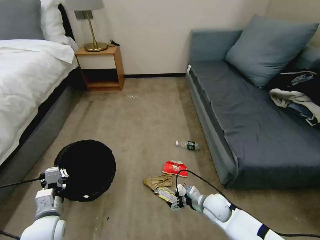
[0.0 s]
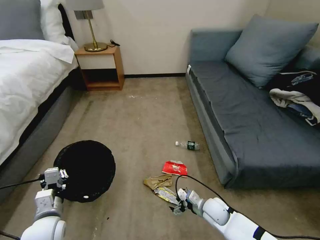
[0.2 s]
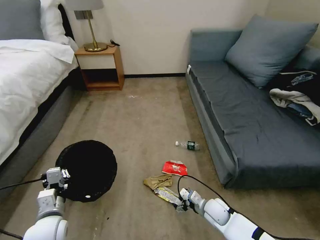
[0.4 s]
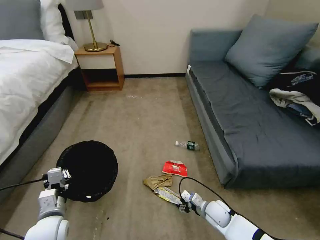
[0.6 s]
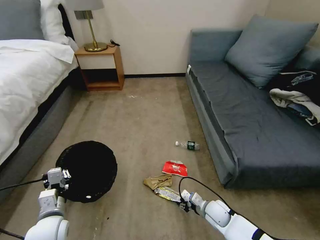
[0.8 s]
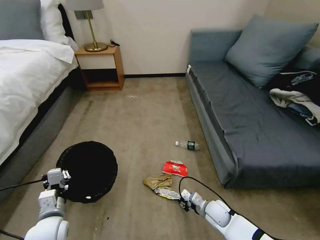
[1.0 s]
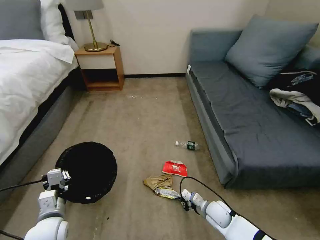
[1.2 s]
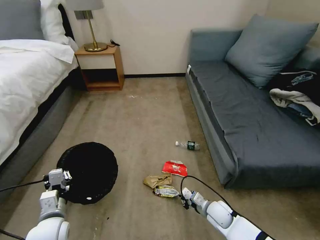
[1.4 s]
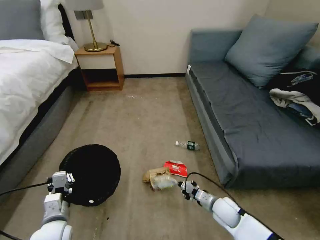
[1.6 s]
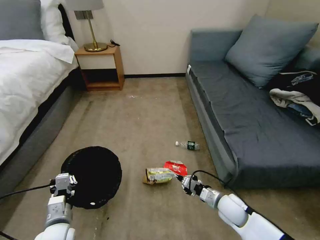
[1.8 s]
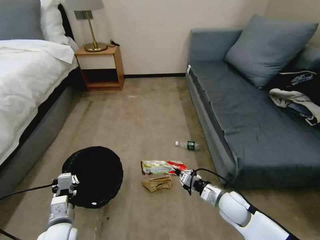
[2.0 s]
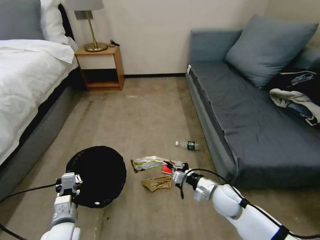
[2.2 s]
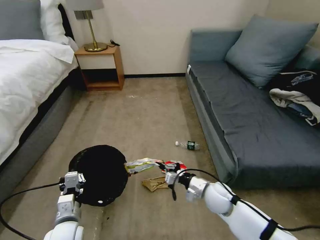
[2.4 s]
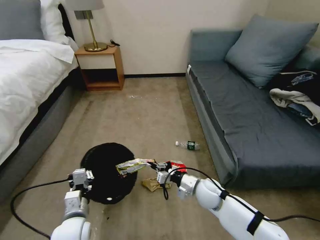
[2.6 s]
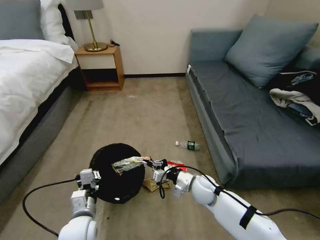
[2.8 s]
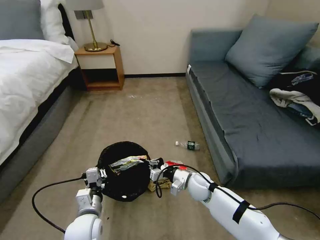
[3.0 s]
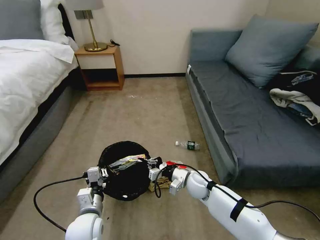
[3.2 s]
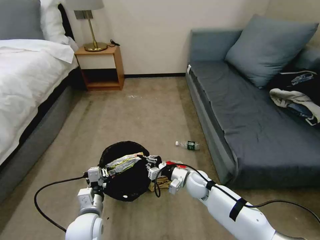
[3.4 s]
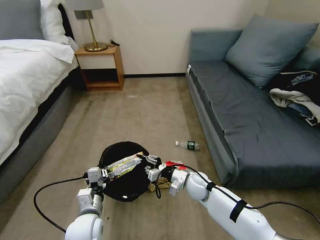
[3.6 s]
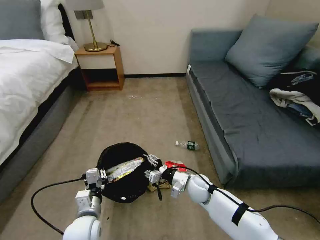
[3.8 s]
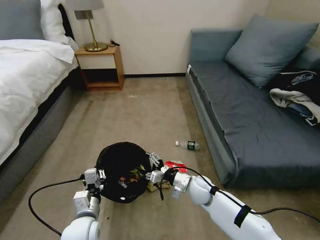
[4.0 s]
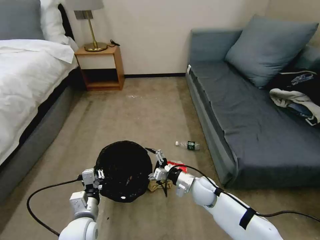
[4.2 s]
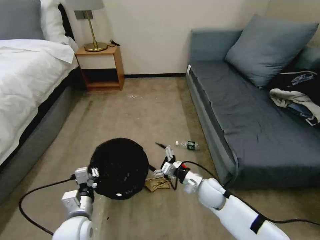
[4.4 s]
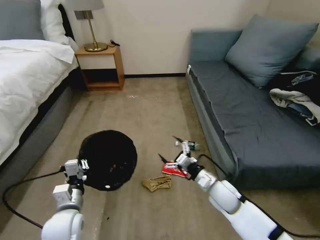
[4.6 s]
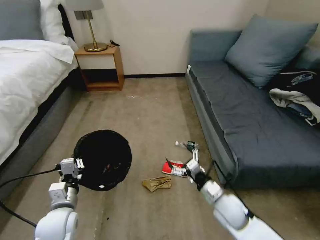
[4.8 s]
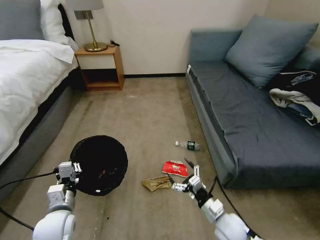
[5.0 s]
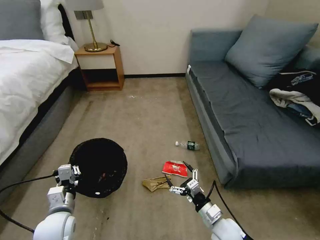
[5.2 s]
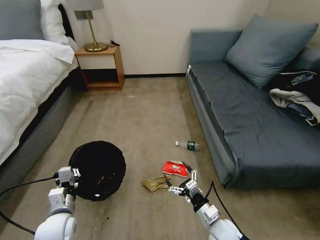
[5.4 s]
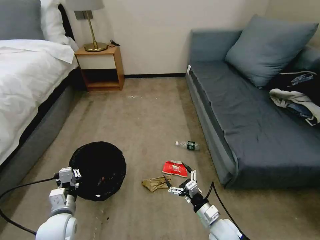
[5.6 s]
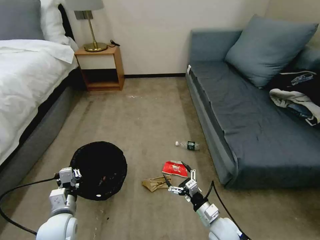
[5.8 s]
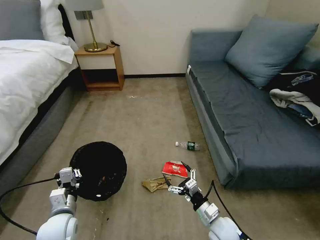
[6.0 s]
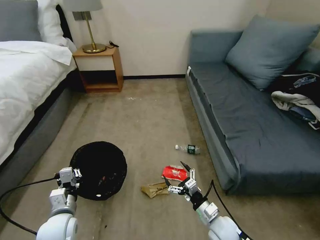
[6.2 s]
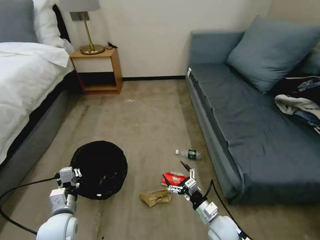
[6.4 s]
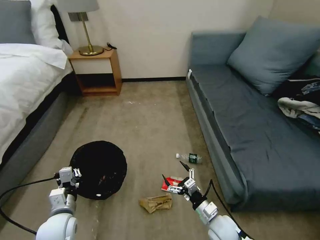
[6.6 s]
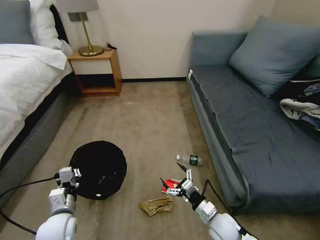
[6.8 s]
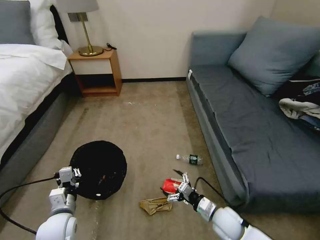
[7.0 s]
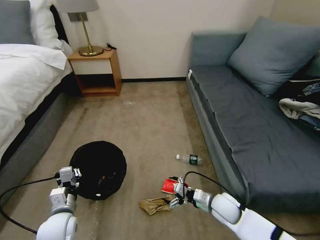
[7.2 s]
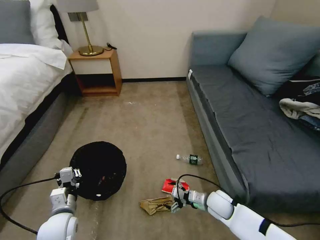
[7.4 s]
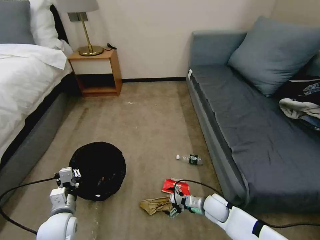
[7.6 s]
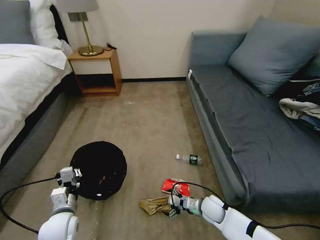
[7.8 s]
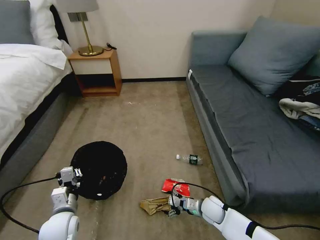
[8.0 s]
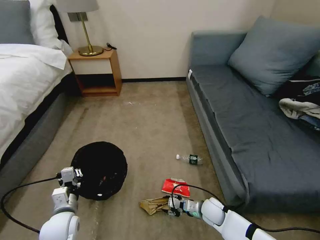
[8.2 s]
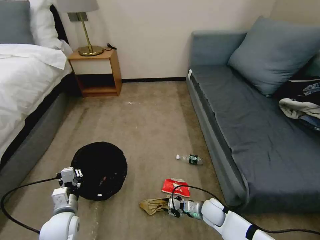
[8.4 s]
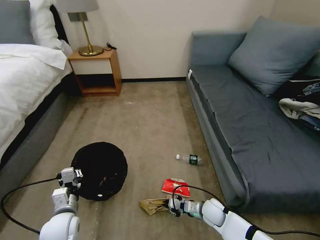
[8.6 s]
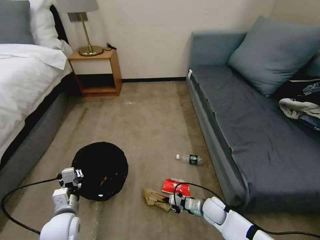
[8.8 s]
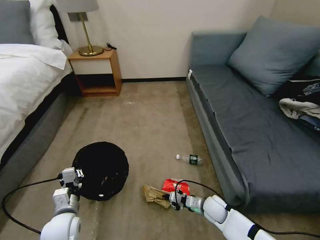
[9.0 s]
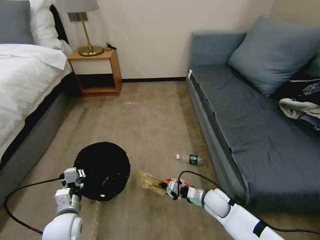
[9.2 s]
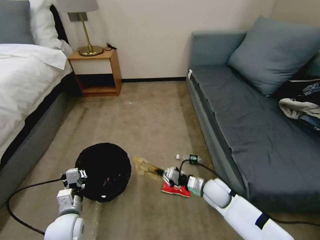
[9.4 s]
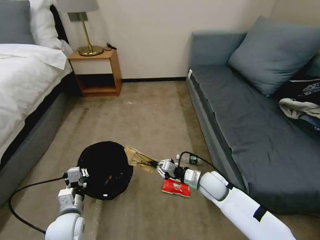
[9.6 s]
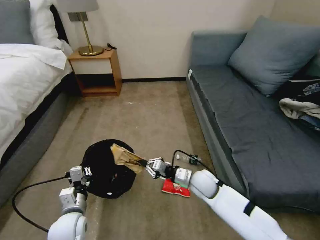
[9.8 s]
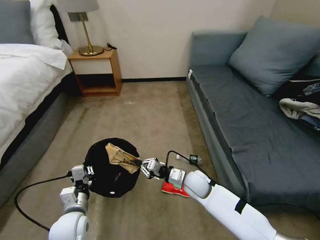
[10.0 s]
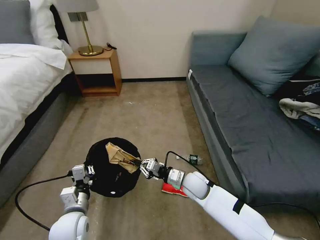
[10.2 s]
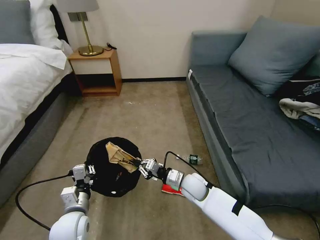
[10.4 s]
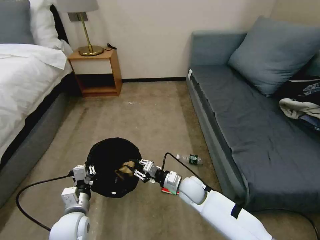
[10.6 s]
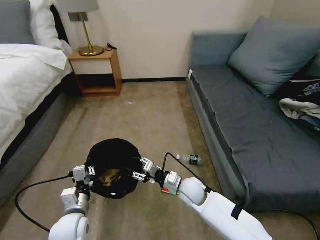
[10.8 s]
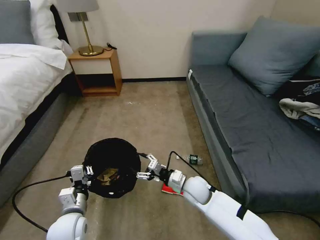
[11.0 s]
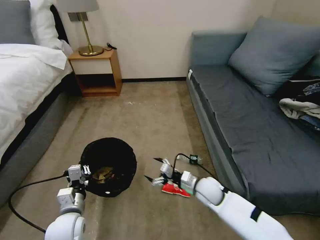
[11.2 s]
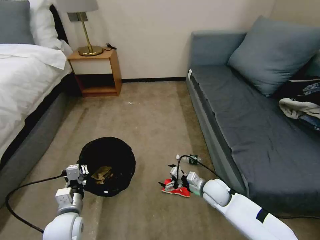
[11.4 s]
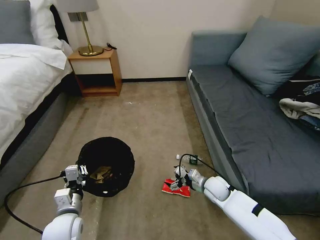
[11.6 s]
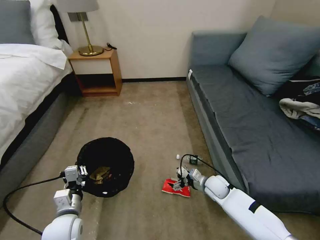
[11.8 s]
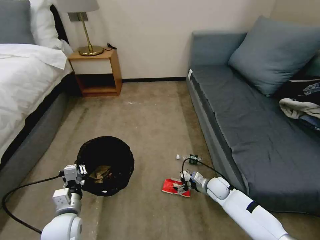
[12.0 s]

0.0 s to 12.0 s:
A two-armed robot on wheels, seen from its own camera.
Task of the whole recording: Pick up the trash bin, then pick up the garbage on the floor and place it into the trash bin.
0.0 to 1.6 s: The right gripper closes its fingers.
1.6 to 3.0 s: The left gripper heads to the right, covering about 10 cm, while the right gripper heads to the left, forward and upward, covering about 15 cm.
3.0 to 4.4 s: The right gripper opens up.
4.4 to 6.0 s: The left gripper shifts about 5 cm to the left. Meanwhile the right gripper moves backward and downward, approximately 15 cm.
6.0 to 7.6 s: The right gripper is displaced forward by some 10 cm.
7.6 to 9.0 s: The right gripper closes up.
9.0 to 10.4 s: The right gripper moves to the left and upward, roughly 15 cm.
10.4 to 12.0 s: The right gripper is displaced to the right and downward by roughly 15 cm, and opens up.

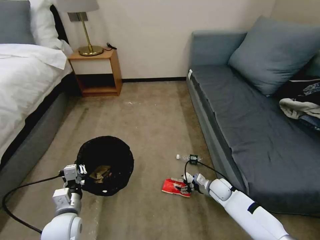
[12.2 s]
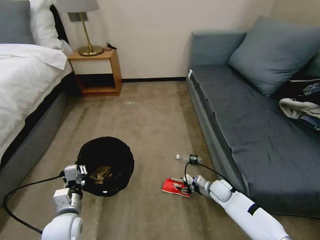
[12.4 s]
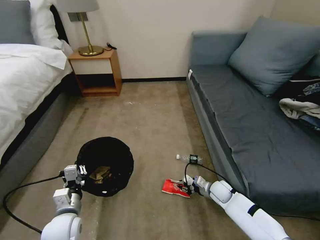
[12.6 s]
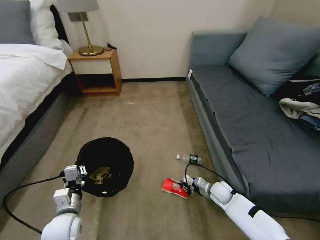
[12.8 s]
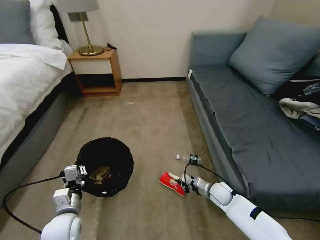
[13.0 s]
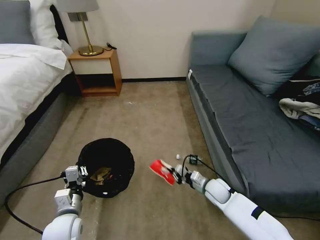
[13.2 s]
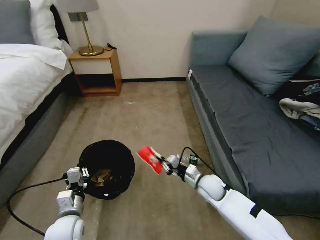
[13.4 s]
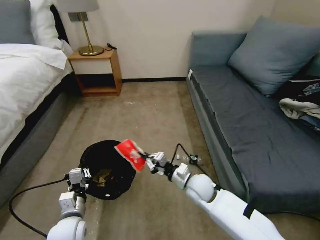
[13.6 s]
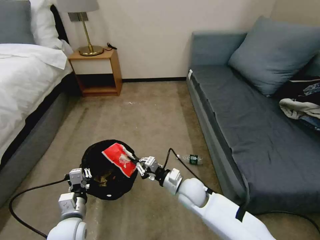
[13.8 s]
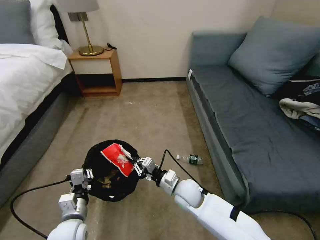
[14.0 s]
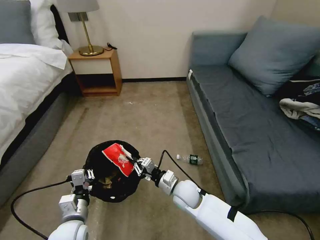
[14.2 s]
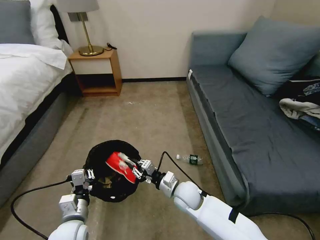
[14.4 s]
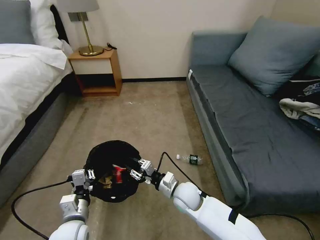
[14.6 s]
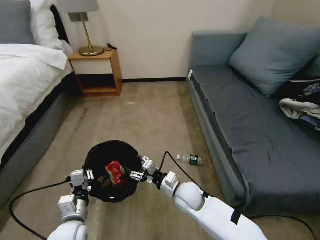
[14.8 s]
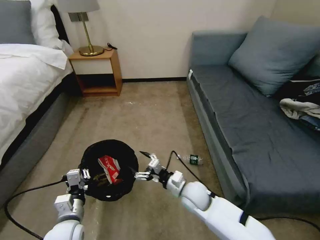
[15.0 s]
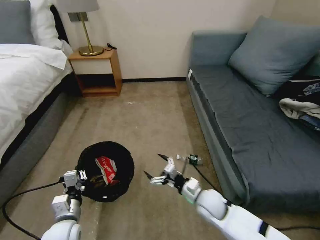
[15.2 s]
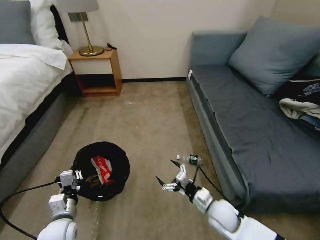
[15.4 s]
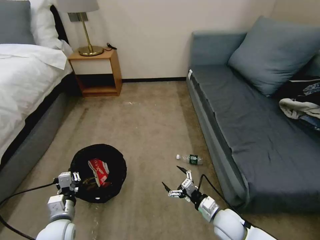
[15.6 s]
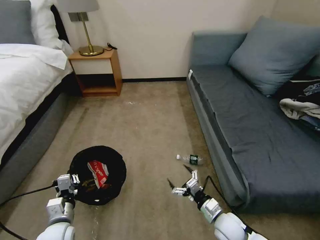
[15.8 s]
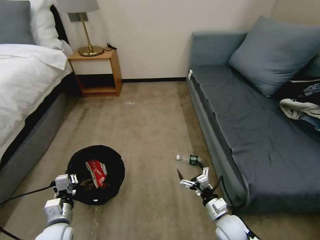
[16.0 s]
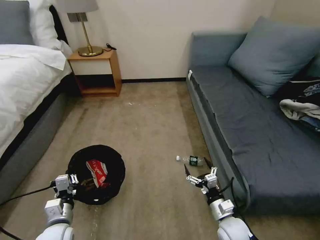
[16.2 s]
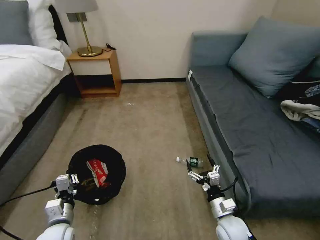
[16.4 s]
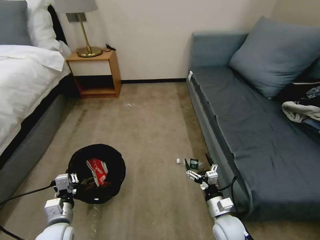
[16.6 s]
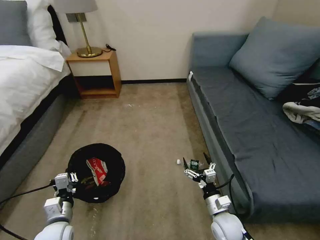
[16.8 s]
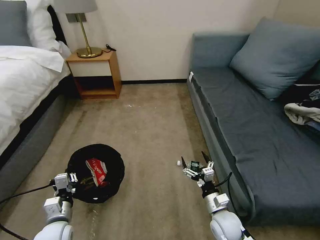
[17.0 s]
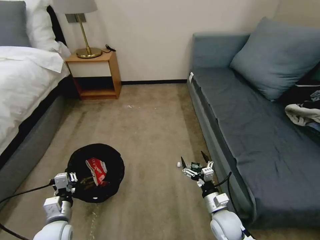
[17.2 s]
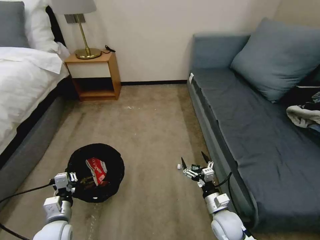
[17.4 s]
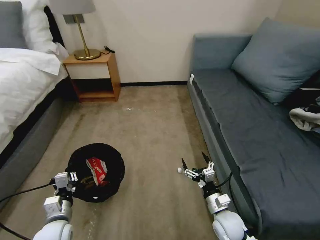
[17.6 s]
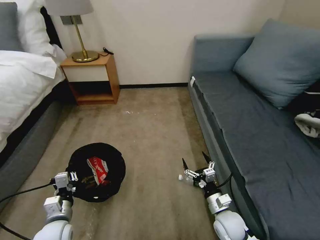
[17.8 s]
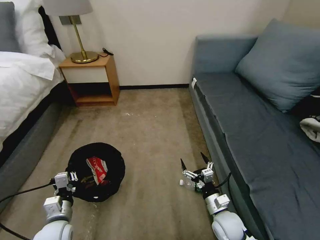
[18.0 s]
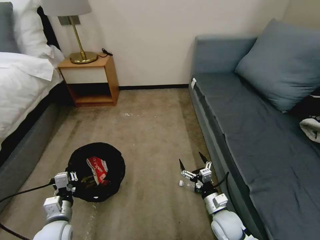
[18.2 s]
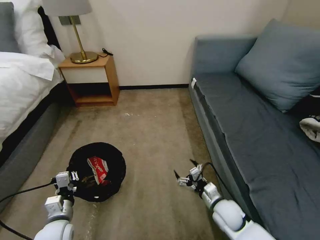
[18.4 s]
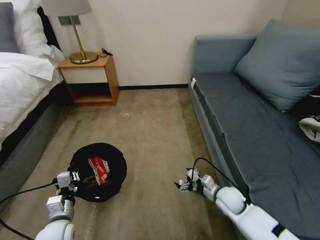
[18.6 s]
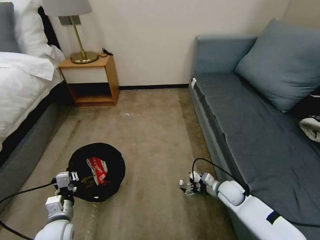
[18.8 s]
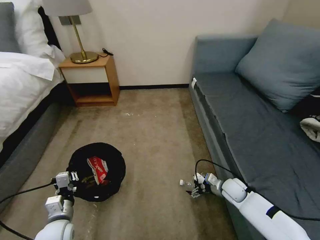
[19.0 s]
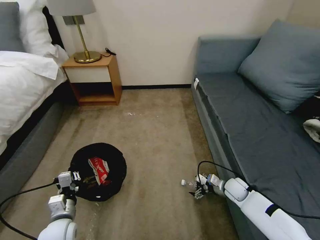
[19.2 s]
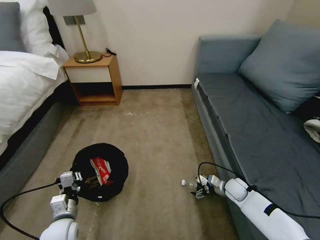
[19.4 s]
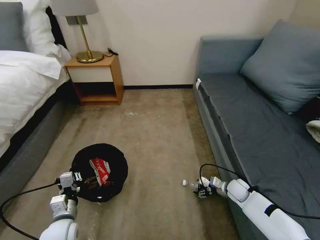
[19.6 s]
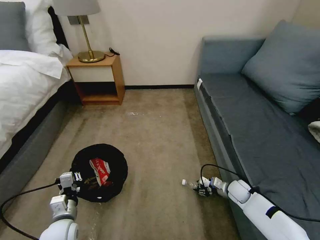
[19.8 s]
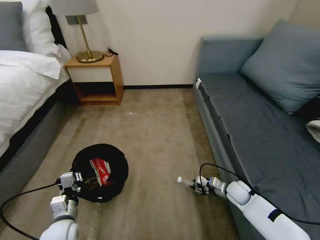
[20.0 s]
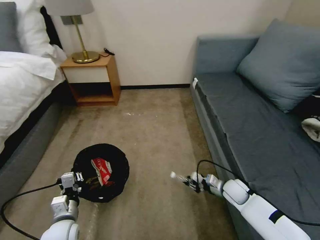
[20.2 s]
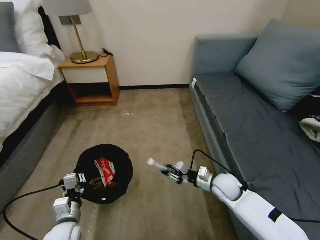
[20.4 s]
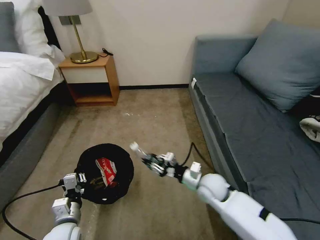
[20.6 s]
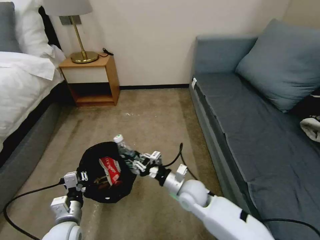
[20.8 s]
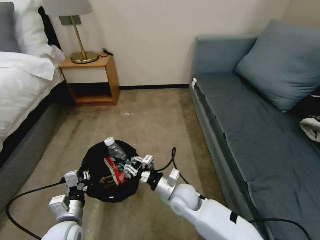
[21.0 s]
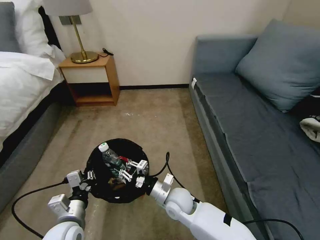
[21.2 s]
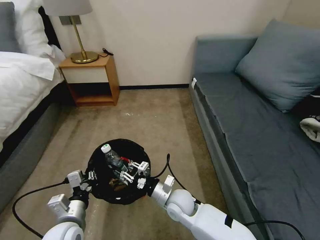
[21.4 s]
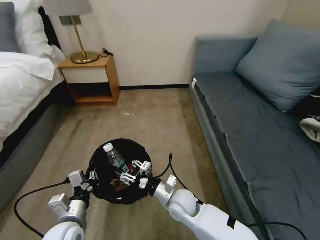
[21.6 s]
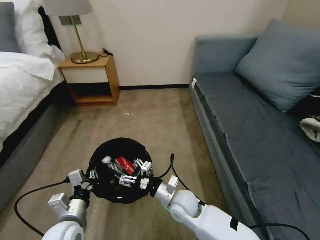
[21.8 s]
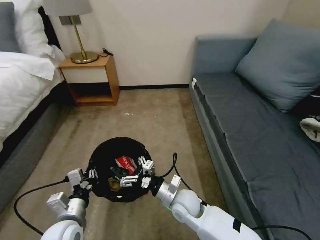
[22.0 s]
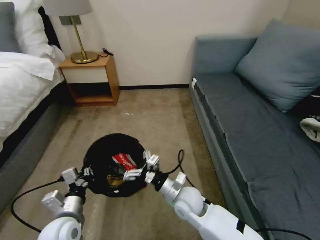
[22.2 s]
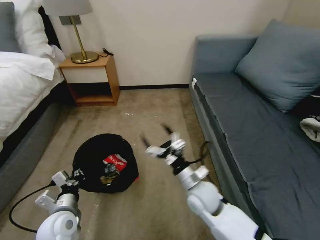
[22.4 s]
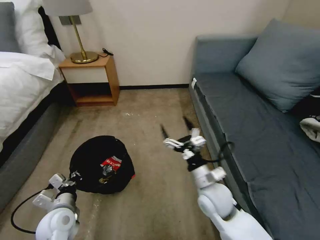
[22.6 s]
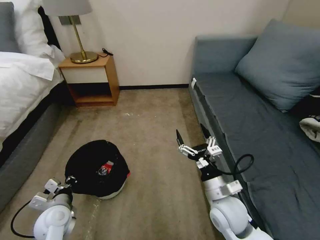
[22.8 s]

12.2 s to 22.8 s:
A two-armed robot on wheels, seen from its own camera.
Task of the whole recording: Pick up the trash bin, then pick up the garbage on the floor and place it into the trash bin.
12.2 to 13.8 s: The right gripper travels to the left and upward by roughly 20 cm, and closes its fingers.
13.8 to 15.2 s: The right gripper moves to the right, approximately 5 cm, and opens up.
15.2 to 16.8 s: The right gripper heads backward, covering roughly 5 cm.
18.2 to 19.8 s: The right gripper heads forward and to the right, covering some 20 cm, and closes.
19.8 to 21.2 s: The right gripper goes about 30 cm to the left; the left gripper moves upward, about 5 cm.
21.2 to 22.8 s: The left gripper travels to the left and forward by some 10 cm, while the right gripper goes about 15 cm to the right and upward, and opens.
